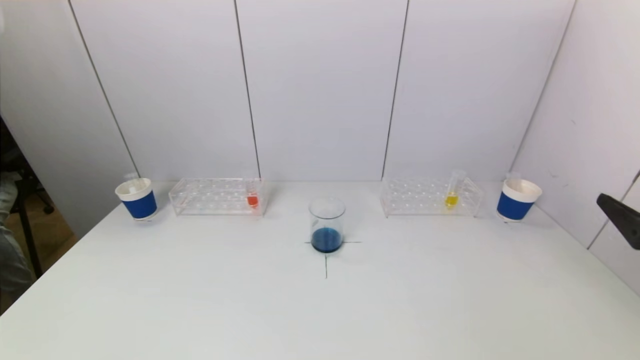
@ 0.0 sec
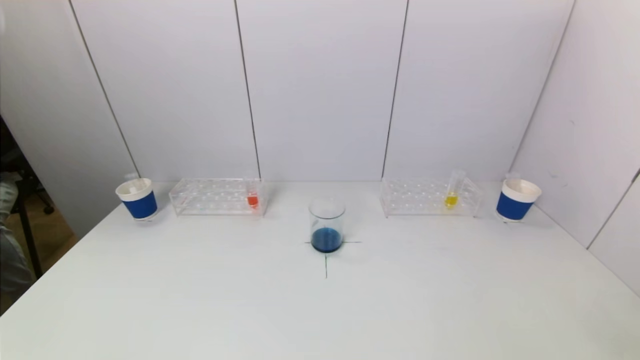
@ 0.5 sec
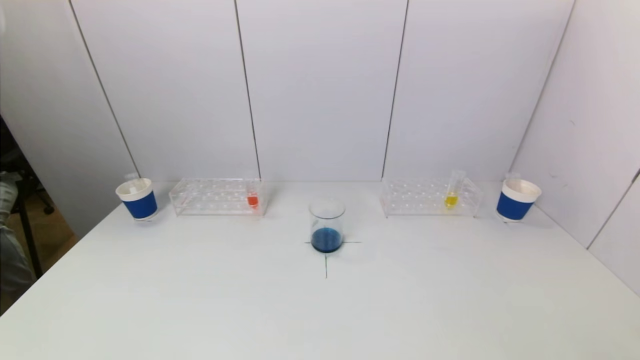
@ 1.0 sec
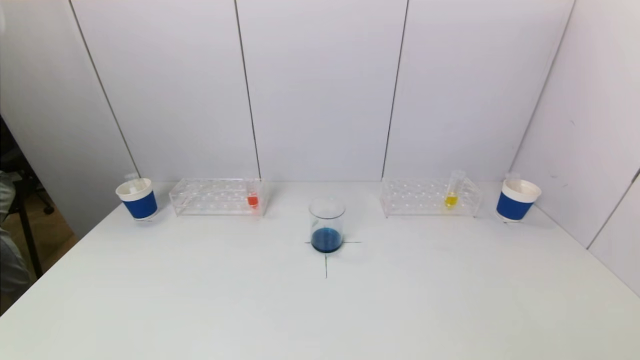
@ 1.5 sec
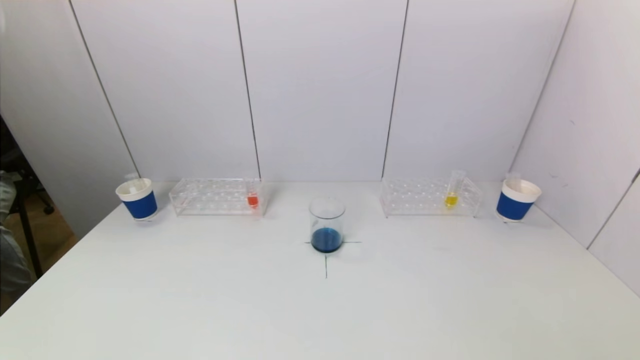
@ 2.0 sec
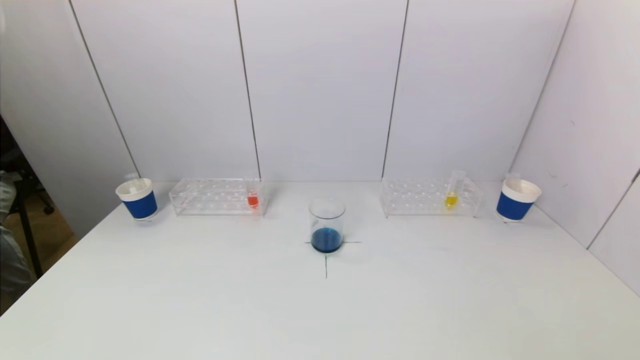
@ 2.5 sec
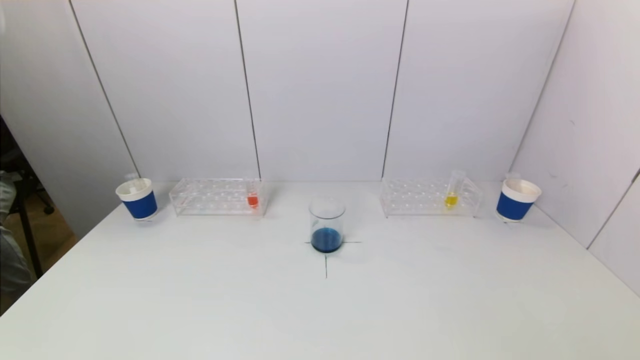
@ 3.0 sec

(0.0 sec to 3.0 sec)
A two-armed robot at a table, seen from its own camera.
Task of the whole recording: pick up a test tube with pigment on left test tube rack and a test tube with pigment on right test tube rack by grippers and pour them into the beaker.
0.0 sec - 1.5 sec: The right gripper goes some 20 cm backward and downward.
1.5 sec - 3.0 sec: Both grippers stay about where they are.

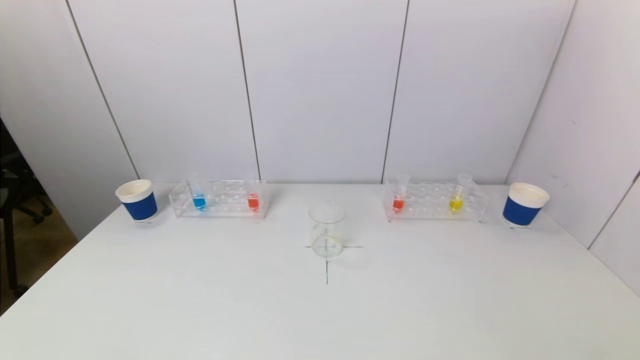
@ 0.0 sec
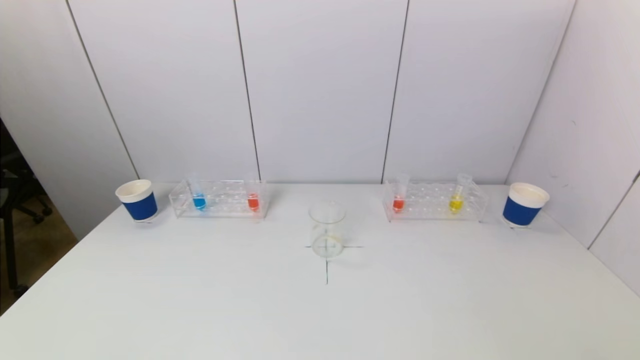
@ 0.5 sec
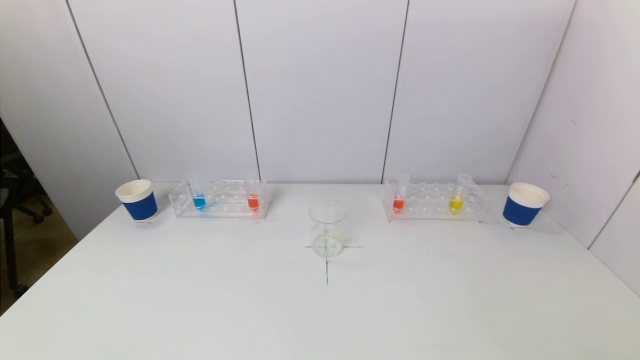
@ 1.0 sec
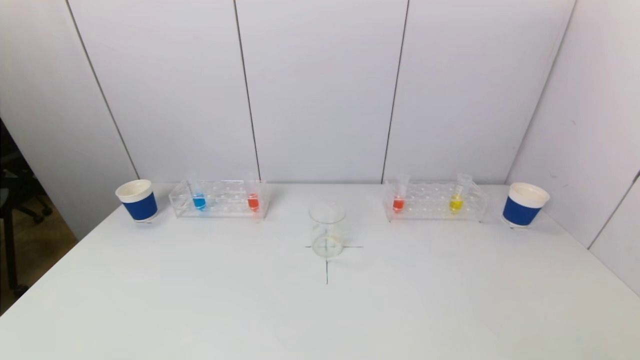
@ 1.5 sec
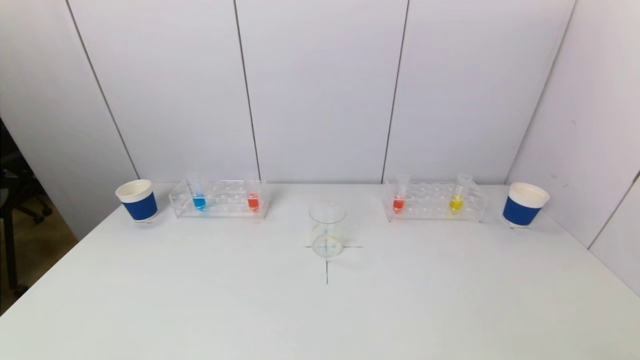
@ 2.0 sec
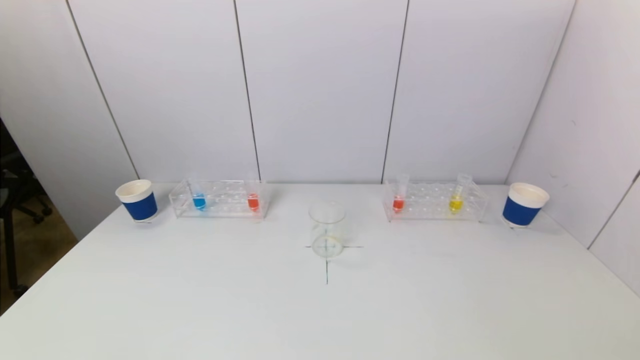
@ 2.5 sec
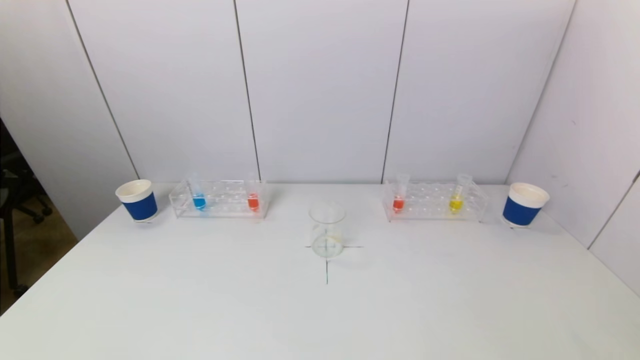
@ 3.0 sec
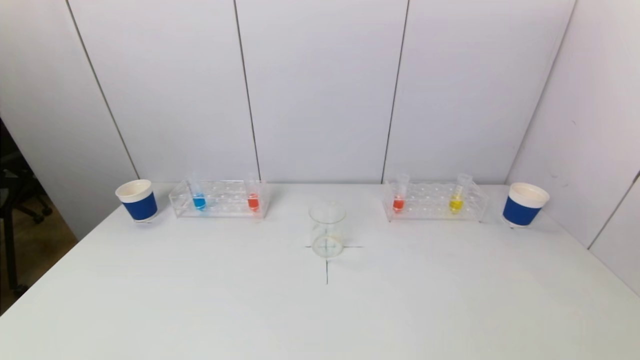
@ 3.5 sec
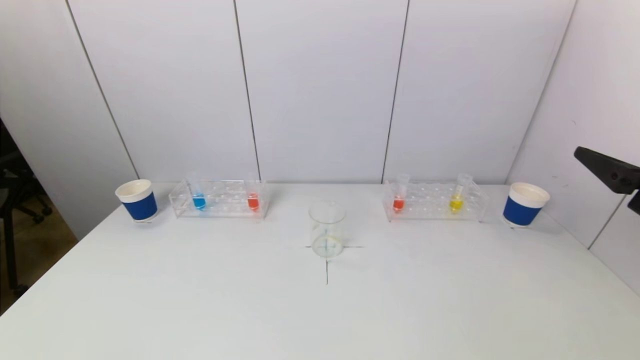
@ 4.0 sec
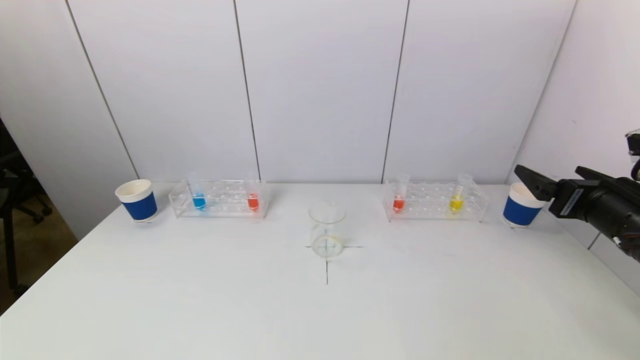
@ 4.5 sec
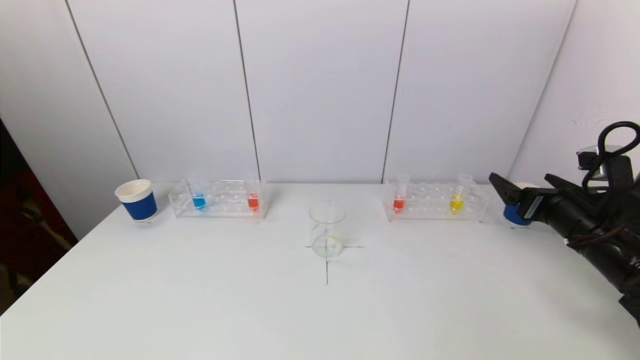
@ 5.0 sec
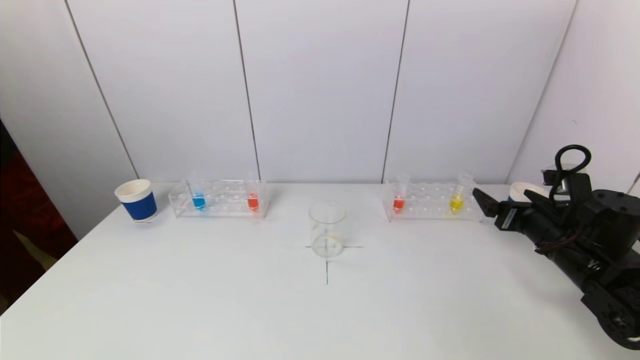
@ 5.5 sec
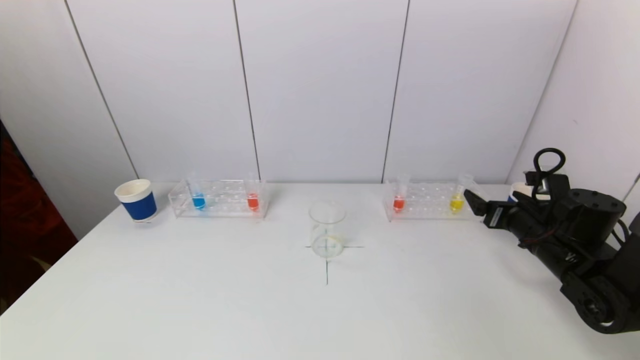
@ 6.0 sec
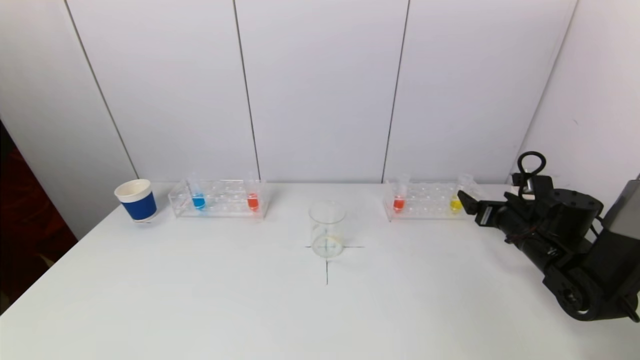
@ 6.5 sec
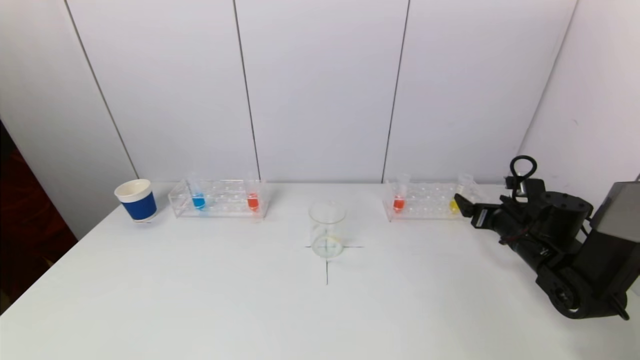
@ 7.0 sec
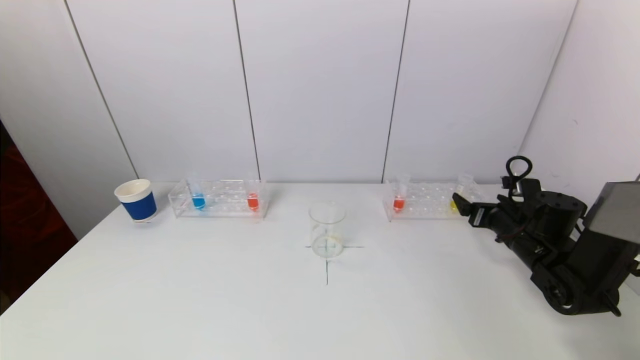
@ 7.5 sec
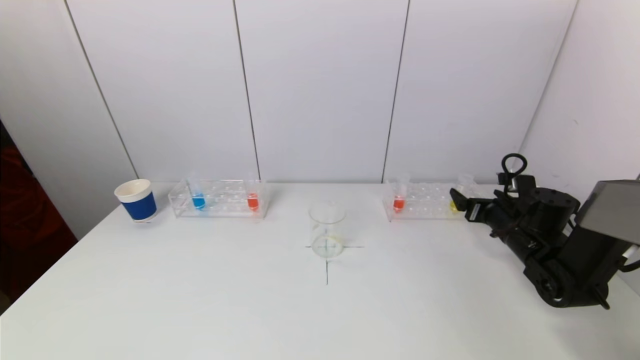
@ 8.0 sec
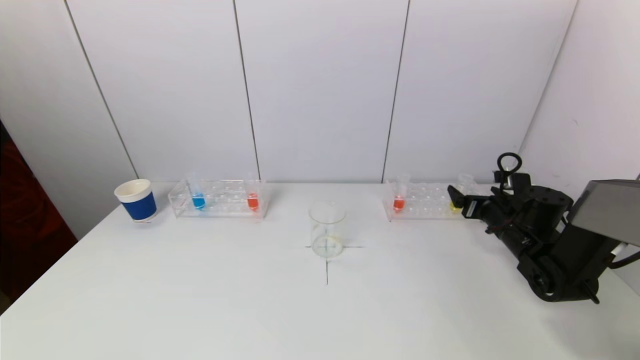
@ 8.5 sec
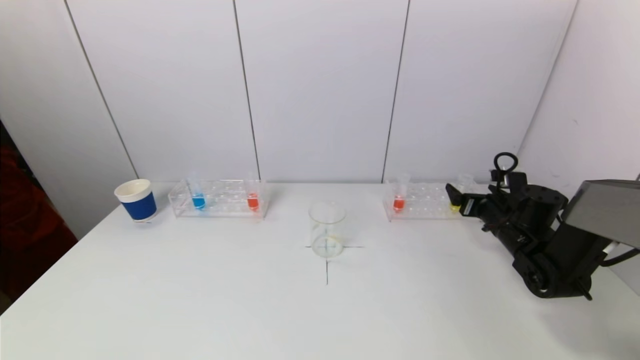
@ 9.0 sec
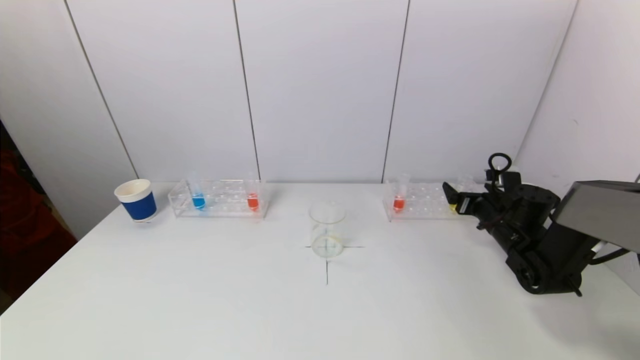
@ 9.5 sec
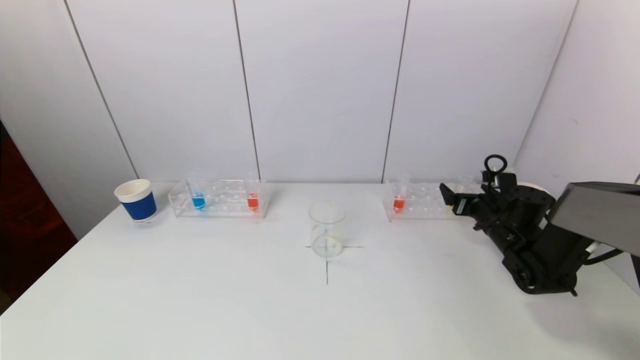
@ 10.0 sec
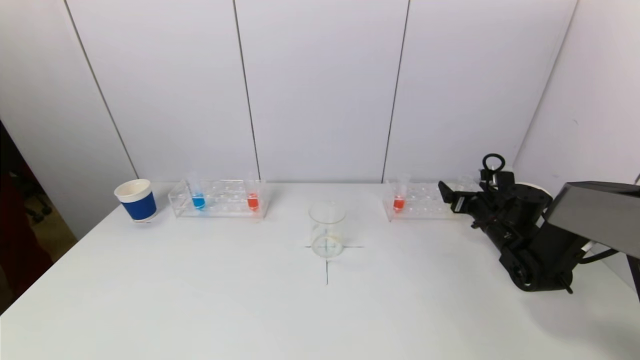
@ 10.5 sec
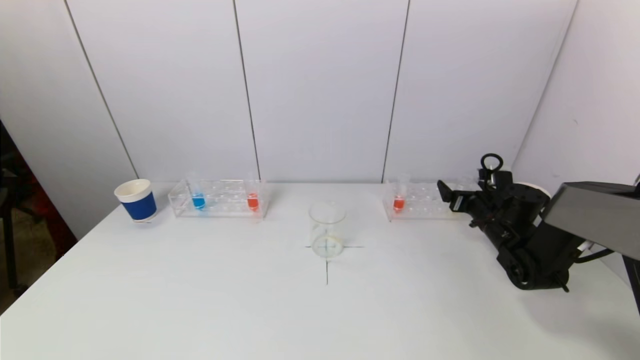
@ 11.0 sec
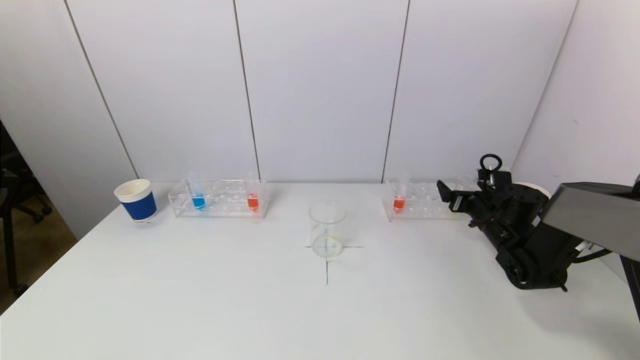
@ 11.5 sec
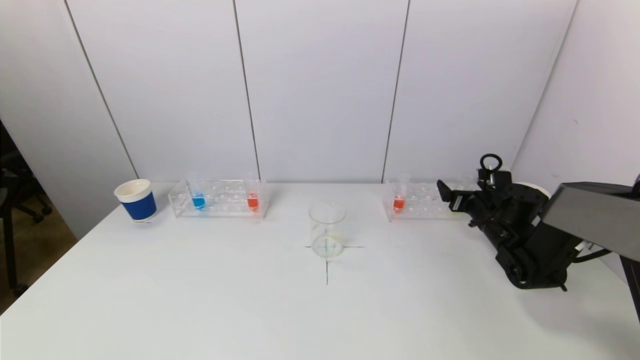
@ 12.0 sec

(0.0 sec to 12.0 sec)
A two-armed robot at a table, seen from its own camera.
Task of the whole recording: pick up a test tube with pigment on left test tube rack and a test tube with pigment on right test tube rack by grippers and pour them into the beaker.
2.0 sec - 4.0 sec: The right gripper moves forward and upward, about 25 cm.
4.0 sec - 6.0 sec: The right gripper goes some 20 cm downward and forward.
6.0 sec - 8.0 sec: The right gripper goes approximately 5 cm forward.
8.0 sec - 10.0 sec: The grippers stay close to where they were, moving slightly.
10.0 sec - 12.0 sec: Both grippers stay put.

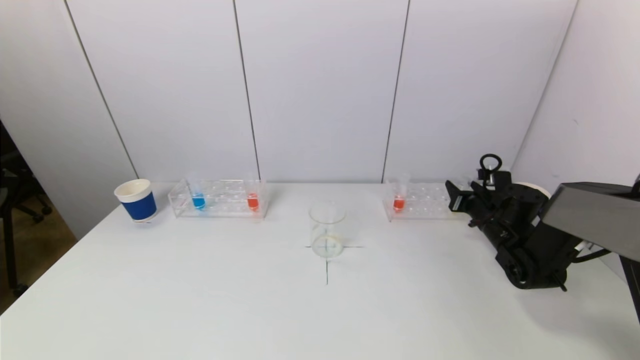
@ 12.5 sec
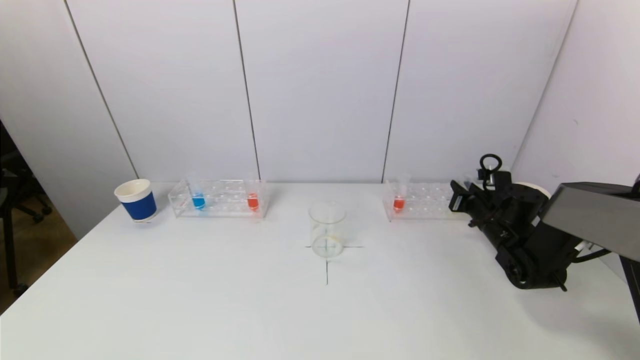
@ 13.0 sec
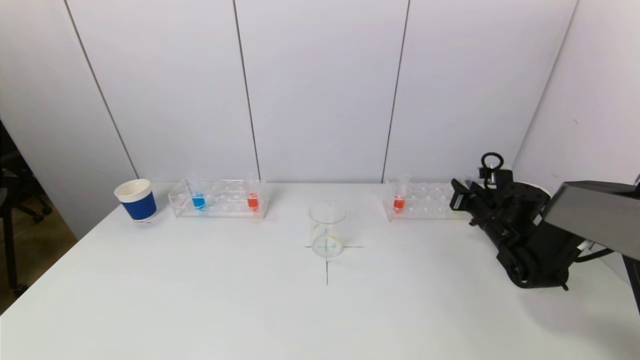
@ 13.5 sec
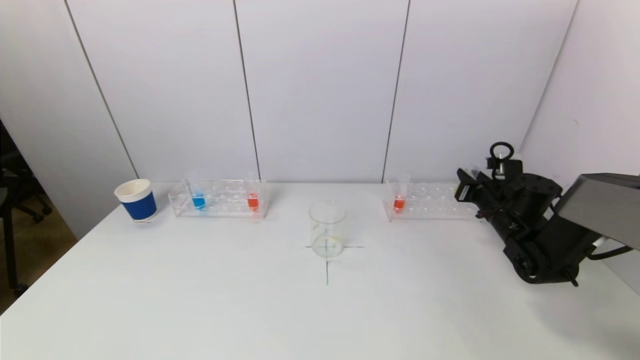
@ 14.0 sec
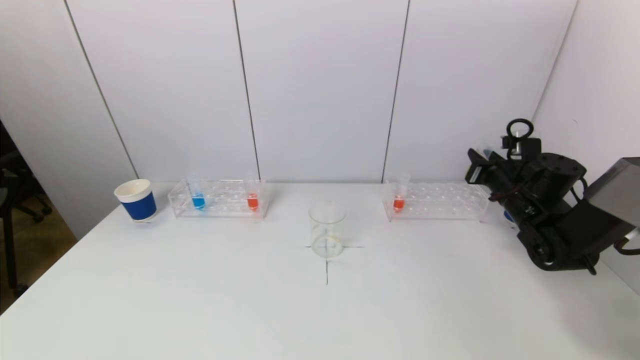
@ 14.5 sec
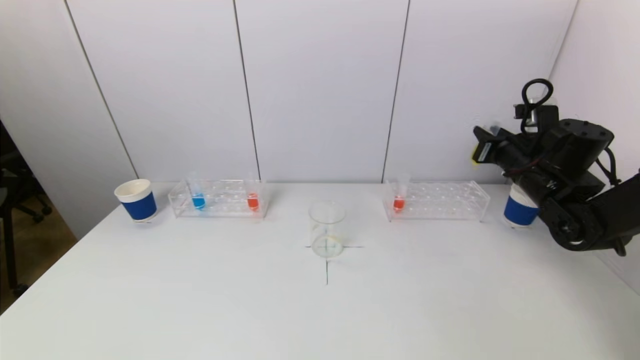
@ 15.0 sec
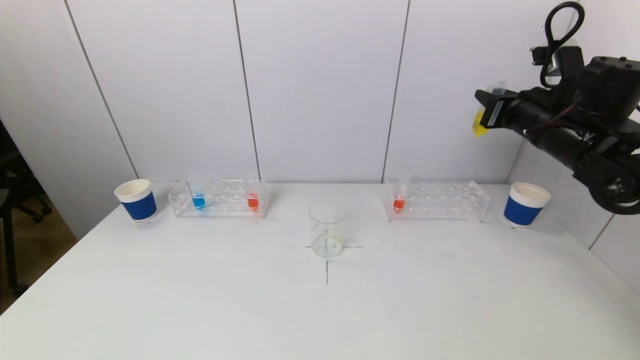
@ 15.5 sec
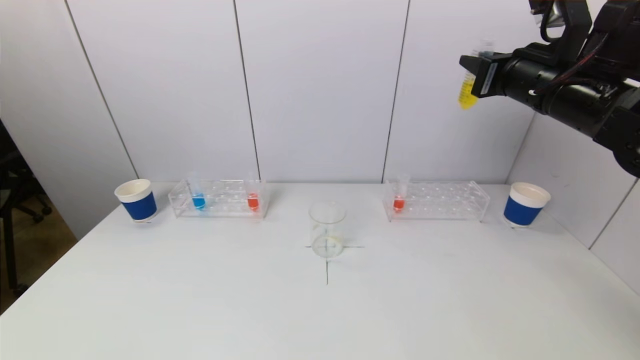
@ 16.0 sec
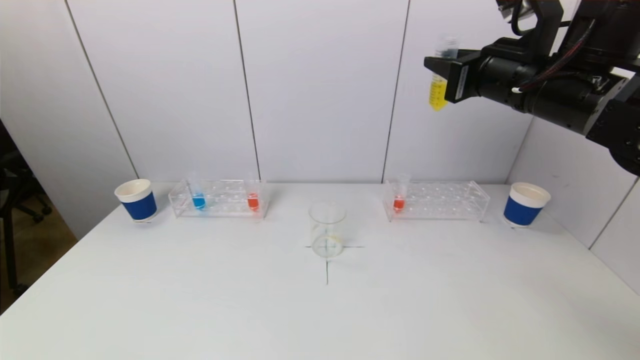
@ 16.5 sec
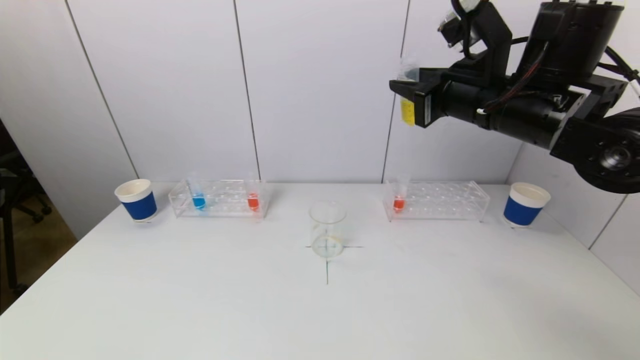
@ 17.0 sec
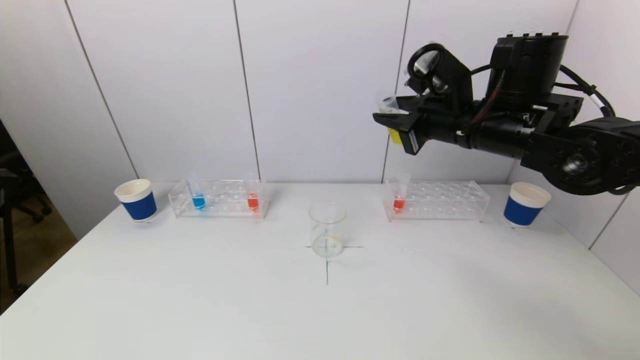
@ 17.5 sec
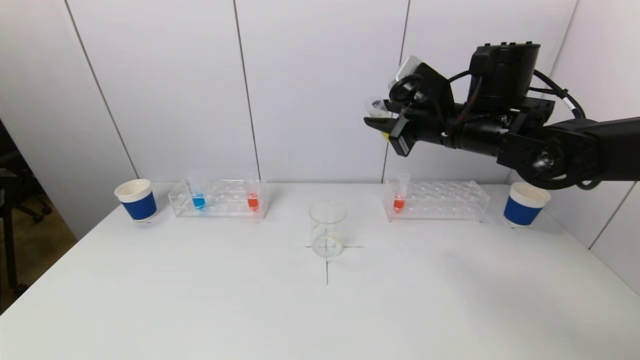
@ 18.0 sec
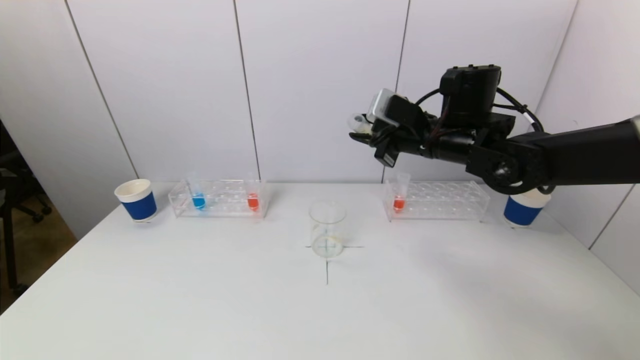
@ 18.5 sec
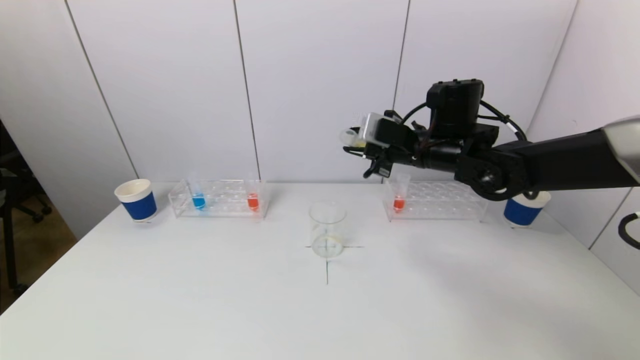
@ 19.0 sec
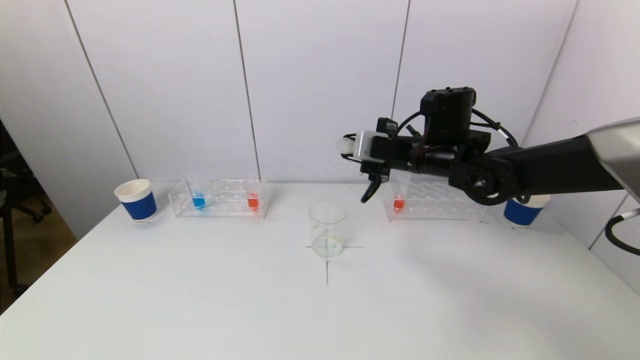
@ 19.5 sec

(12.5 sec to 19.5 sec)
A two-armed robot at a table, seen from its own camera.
Task of the whole recording: pick up a test tube with pigment on left test tube rack and a test tube with pigment on right test tube rack by grippers and pour them into the beaker.
12.5 sec - 14.5 sec: The right gripper moves upward, about 10 cm.
14.5 sec - 16.0 sec: The right gripper heads upward, covering about 20 cm.
16.0 sec - 17.5 sec: The right gripper shifts approximately 10 cm to the left.
17.5 sec - 19.5 sec: The right gripper travels downward and forward by some 10 cm.
